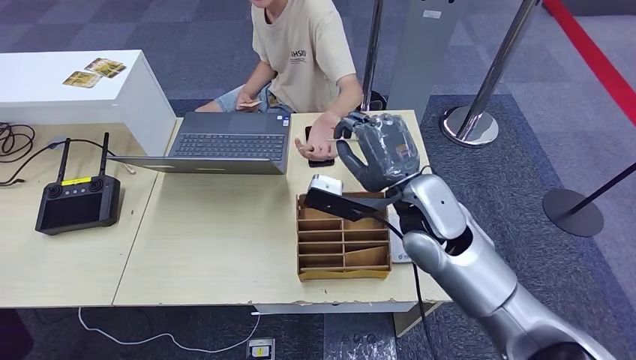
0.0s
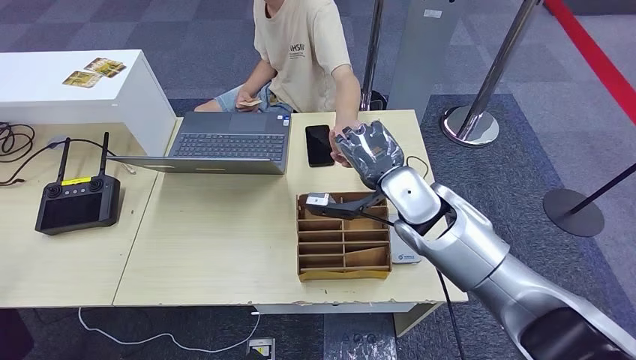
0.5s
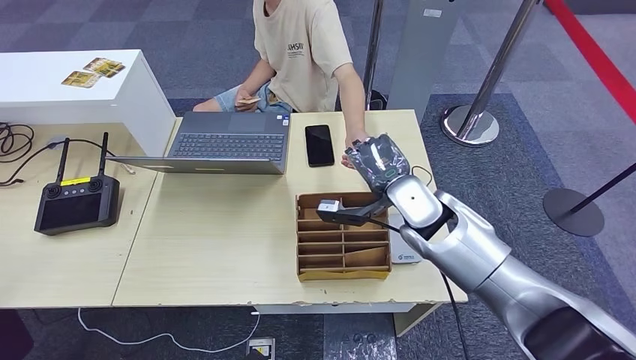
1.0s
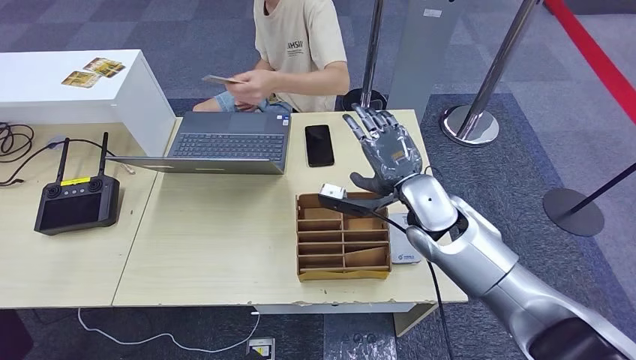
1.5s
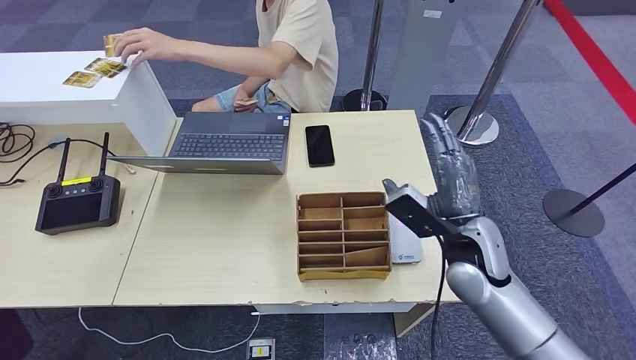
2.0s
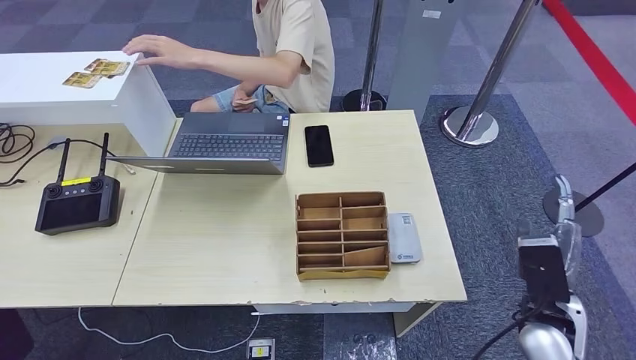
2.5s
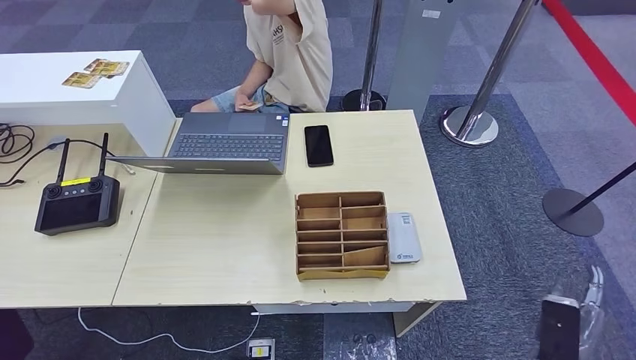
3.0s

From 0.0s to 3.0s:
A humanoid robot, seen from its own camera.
Step, from 0.0s to 3.0s: Hand the room key to the person.
From 0.0s to 1.5s: The right hand changes place by some 5 cm.
From 1.5s to 3.0s: The right hand shifts roughly 35 cm backward, to the right and downward.

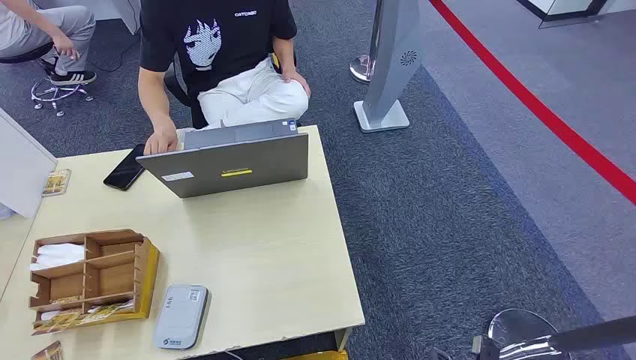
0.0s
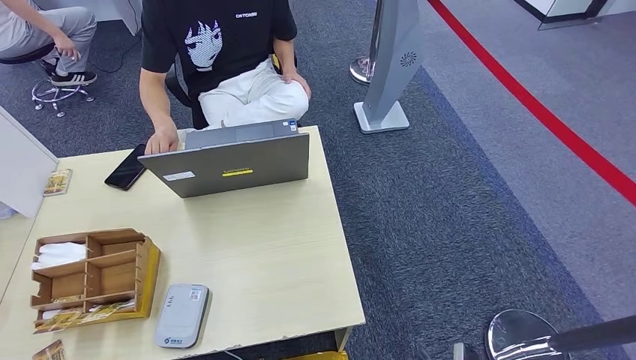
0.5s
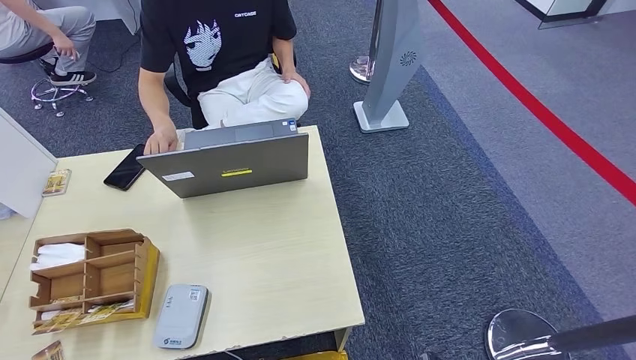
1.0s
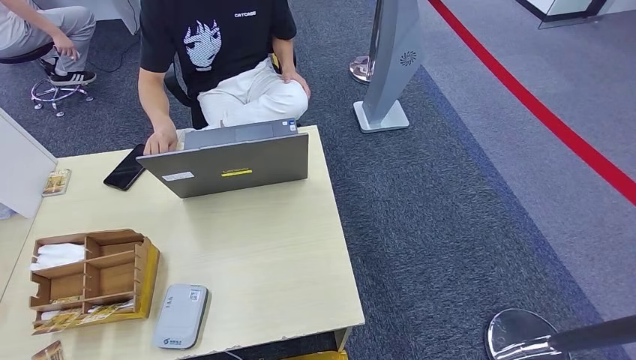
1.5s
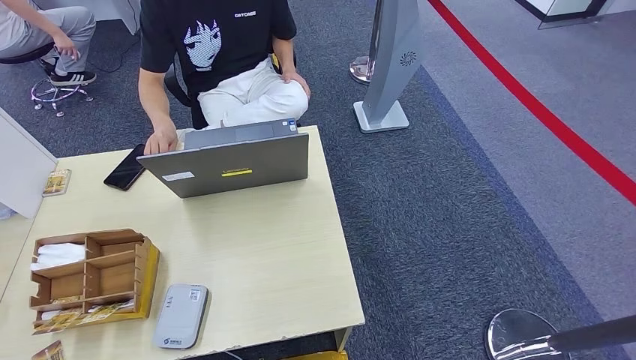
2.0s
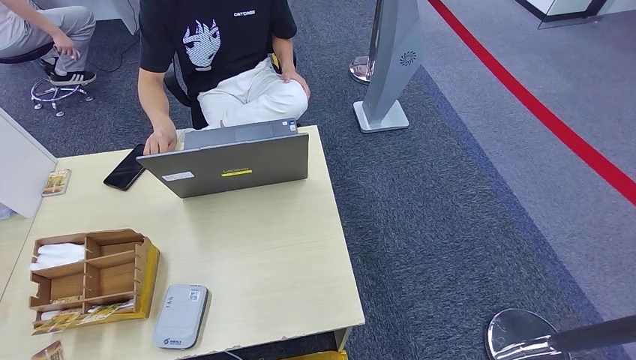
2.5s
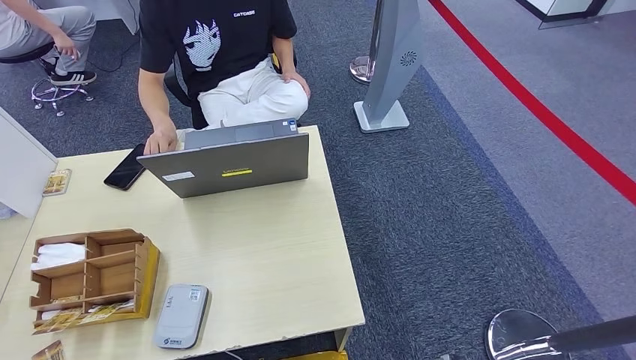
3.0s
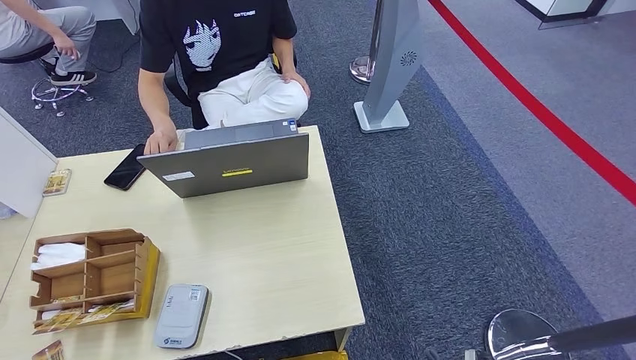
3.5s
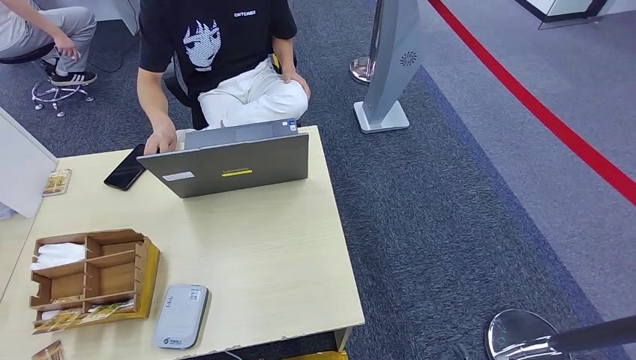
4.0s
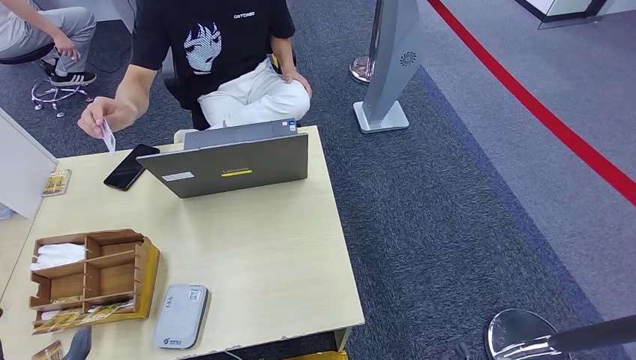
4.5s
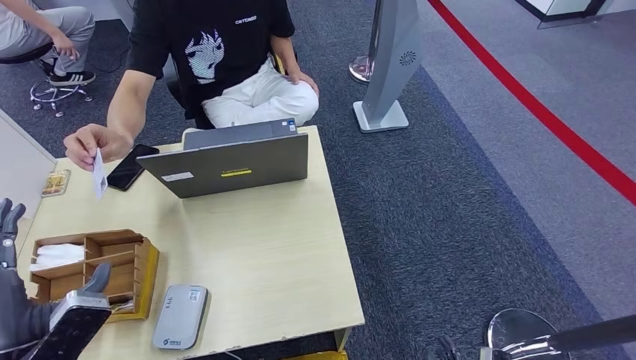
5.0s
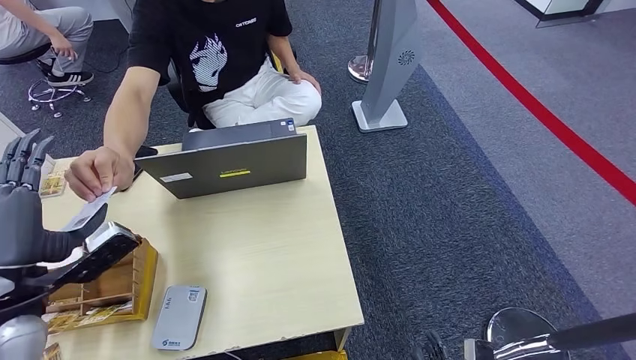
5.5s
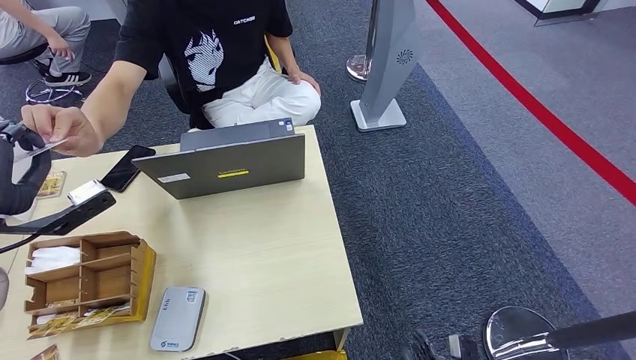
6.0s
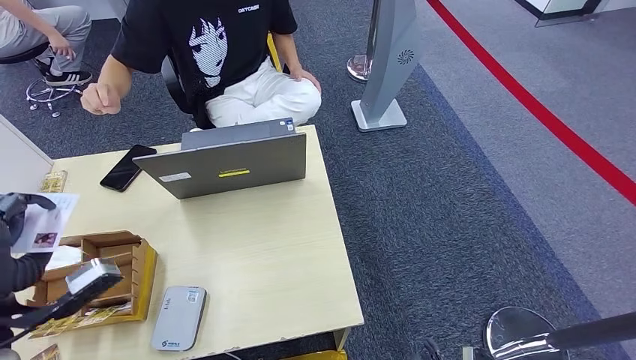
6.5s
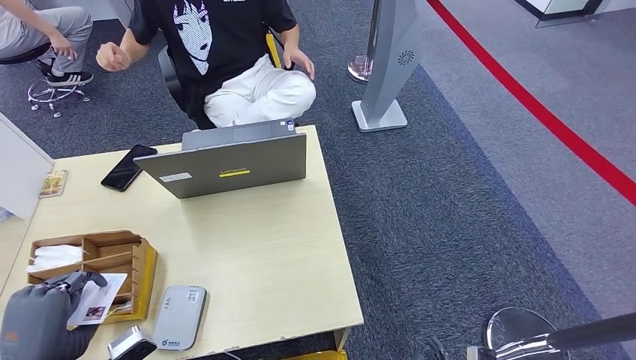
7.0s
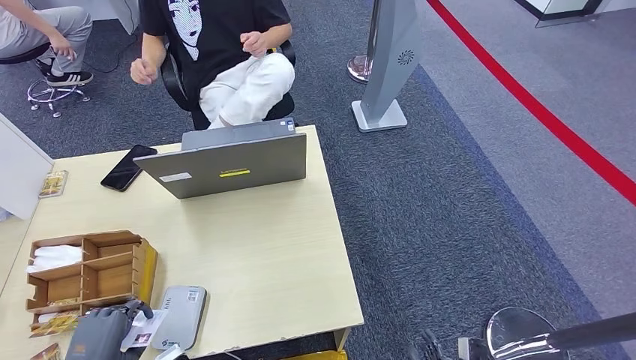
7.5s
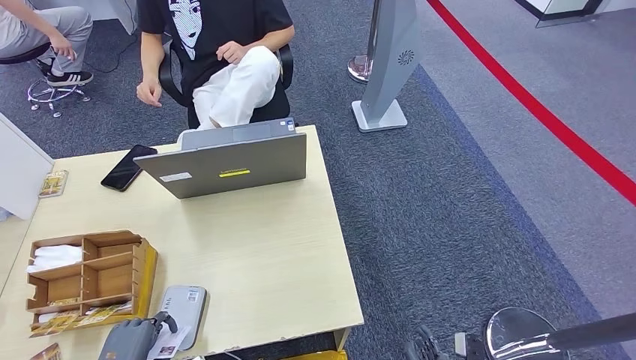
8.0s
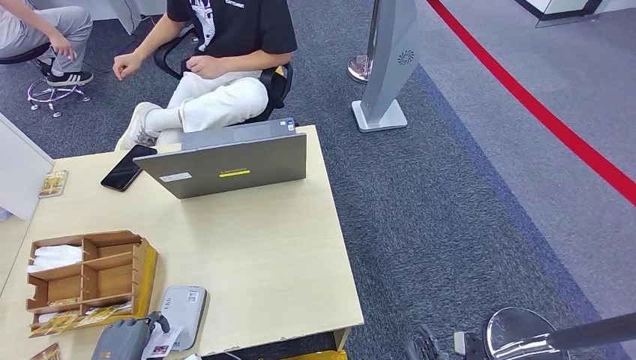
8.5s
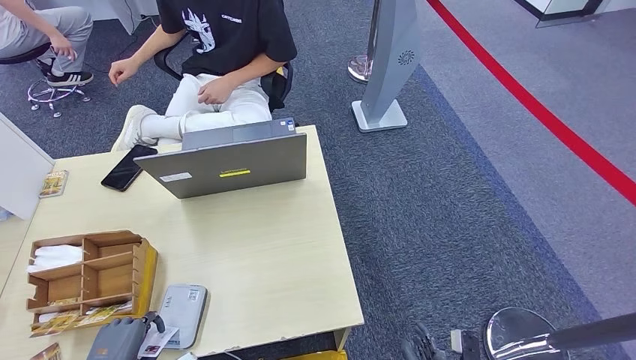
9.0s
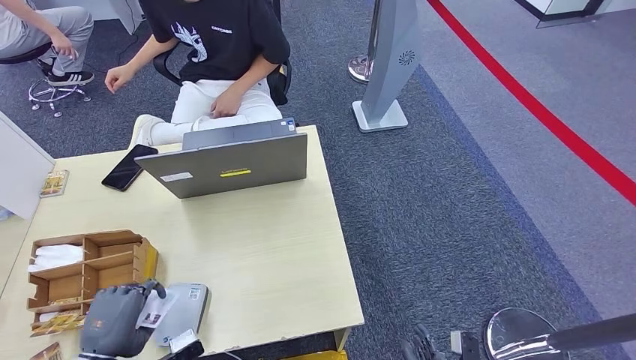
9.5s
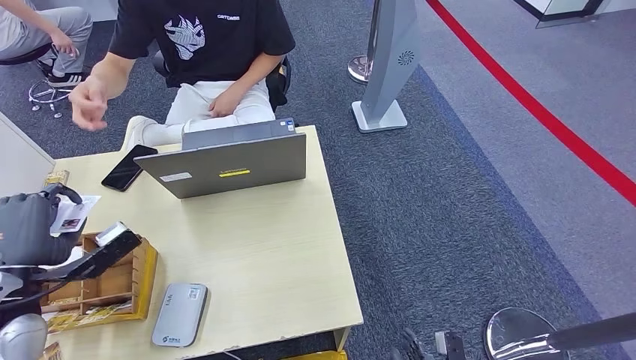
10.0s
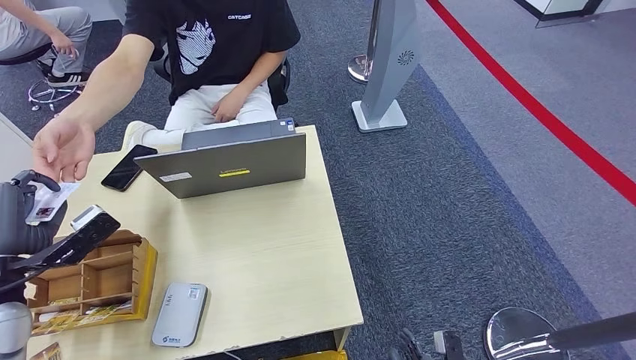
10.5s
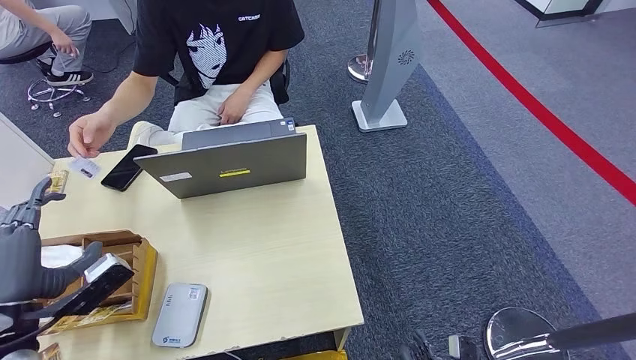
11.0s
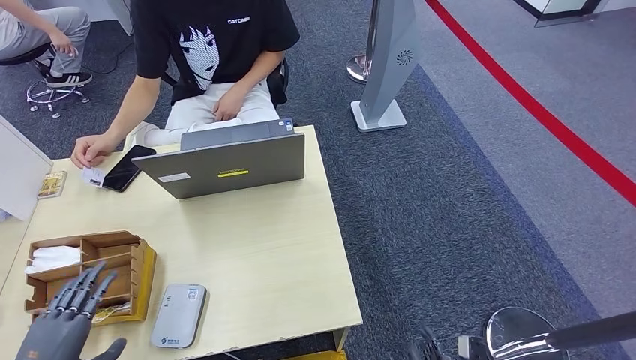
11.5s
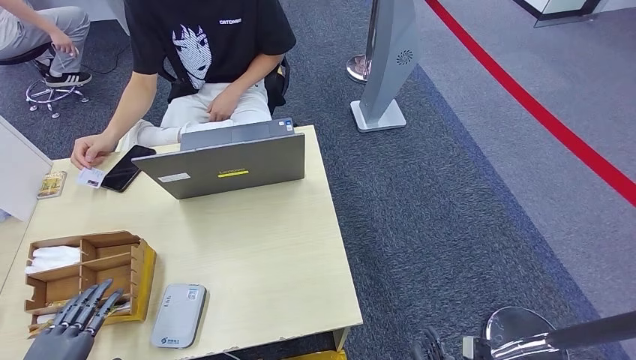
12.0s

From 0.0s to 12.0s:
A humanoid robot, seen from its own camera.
Step, from 0.0s to 6.0s: Take the ID card from the person's hand.
Step, from 6.5s to 8.5s: Place the ID card on the card reader.
Step, from 9.0s to 11.5s: Hand the ID card to the person.
From 8.0s to 10.0s: The left hand goes some 20 cm forward, upward and to the left.
From 10.0s to 12.0s: The left hand moves backward and downward, approximately 20 cm.

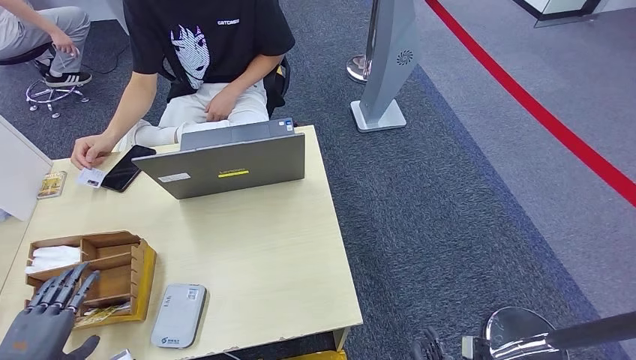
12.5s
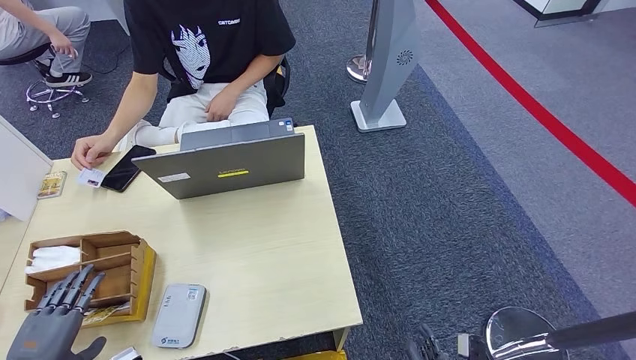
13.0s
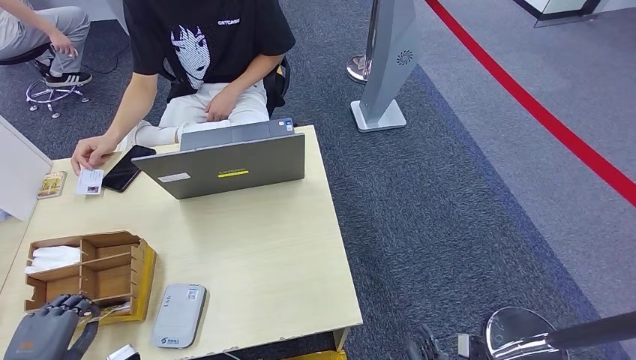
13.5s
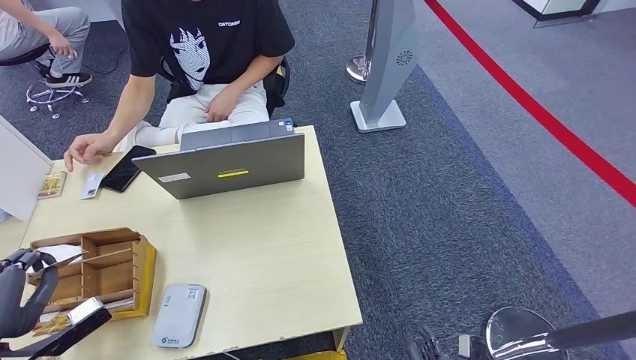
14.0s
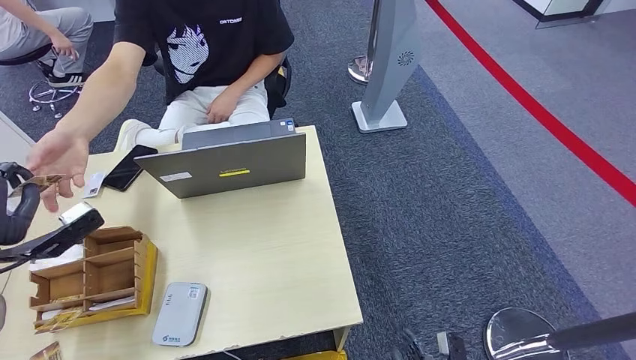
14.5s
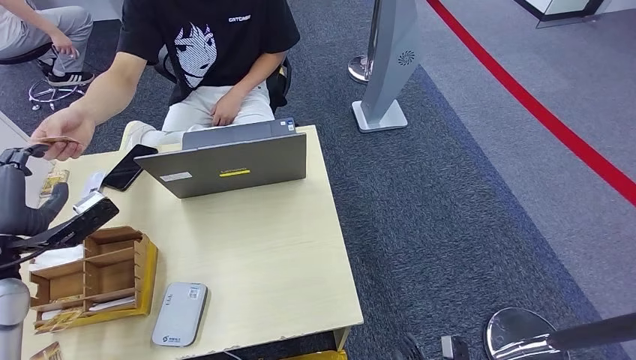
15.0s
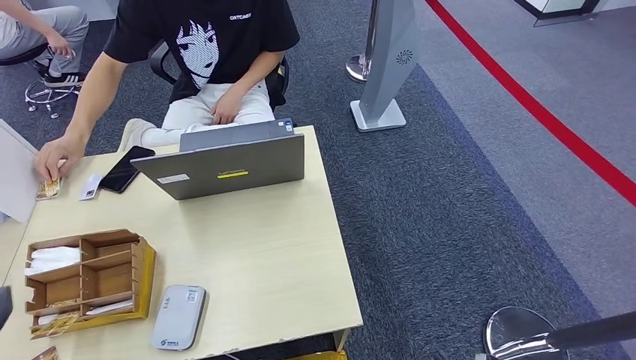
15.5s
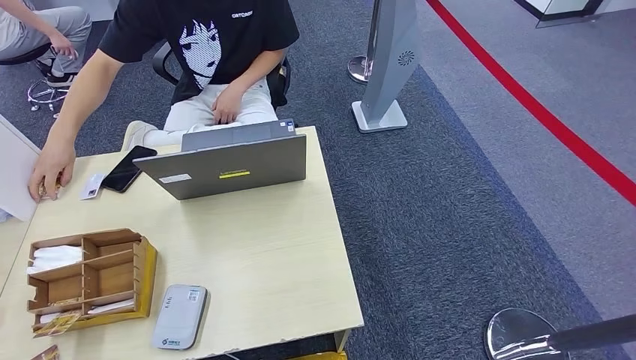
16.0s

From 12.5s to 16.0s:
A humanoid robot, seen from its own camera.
Step, from 12.5s to 13.5s: Pick up the room key from the key card box.
Step, from 14.0s to 16.0s: Hand the room key to the person.
From 12.5s to 14.5s: The left hand moves forward and upward, about 20 cm.
From 14.5s to 16.0s: The right hand is displaced backward by roughly 5 cm, while the left hand shifts roughly 30 cm backward and downward.
